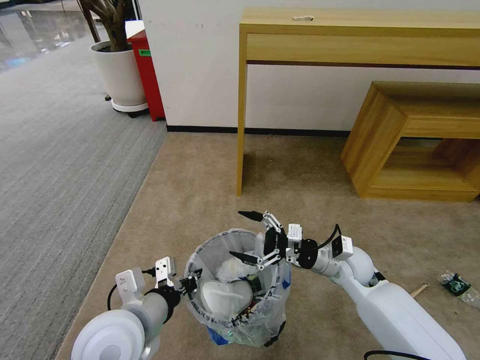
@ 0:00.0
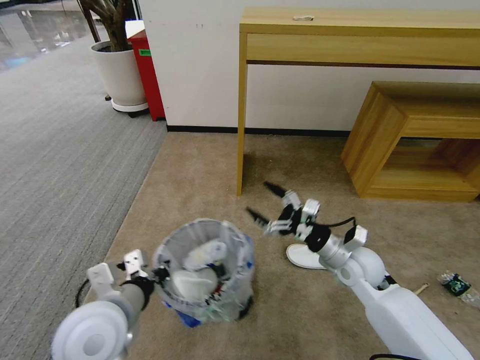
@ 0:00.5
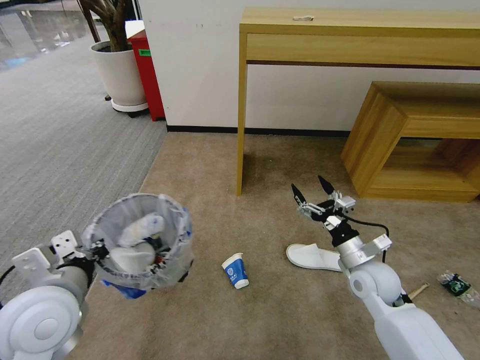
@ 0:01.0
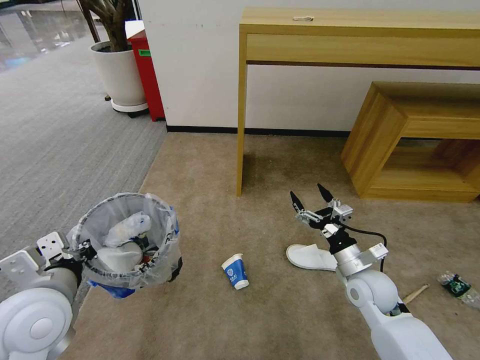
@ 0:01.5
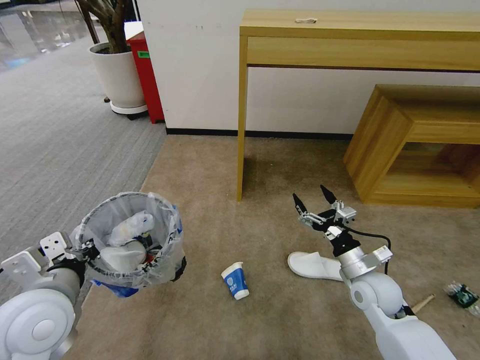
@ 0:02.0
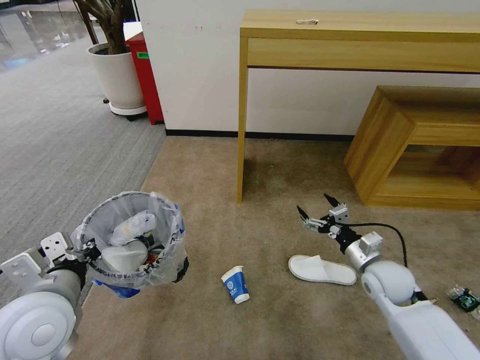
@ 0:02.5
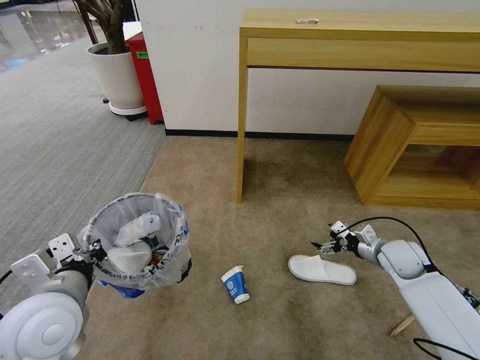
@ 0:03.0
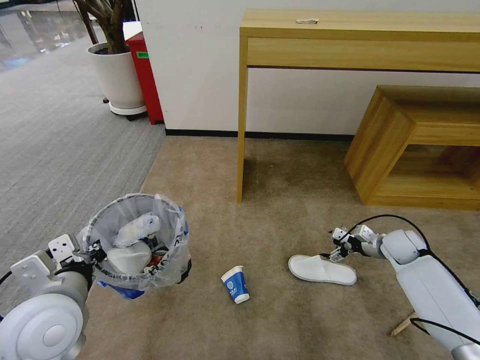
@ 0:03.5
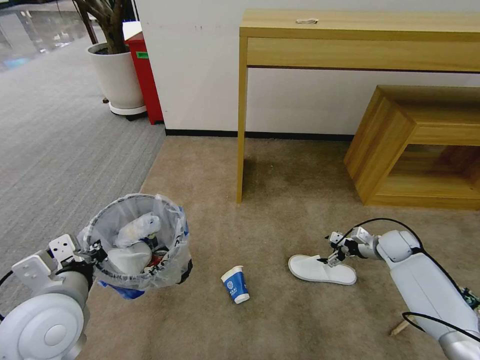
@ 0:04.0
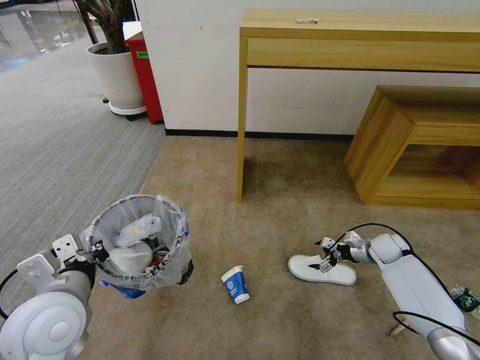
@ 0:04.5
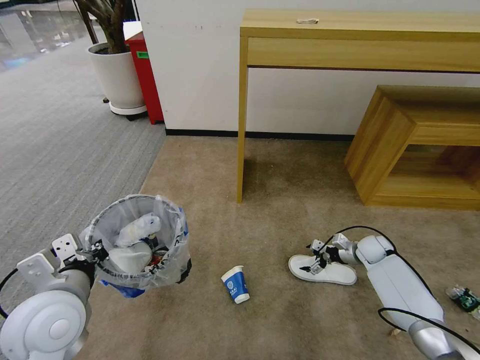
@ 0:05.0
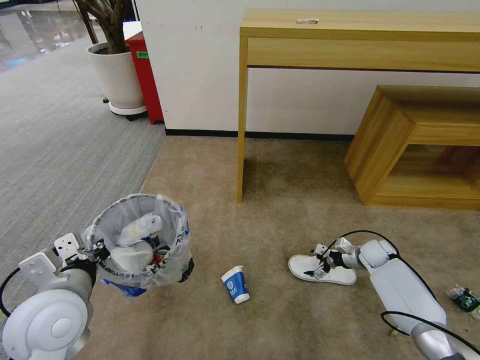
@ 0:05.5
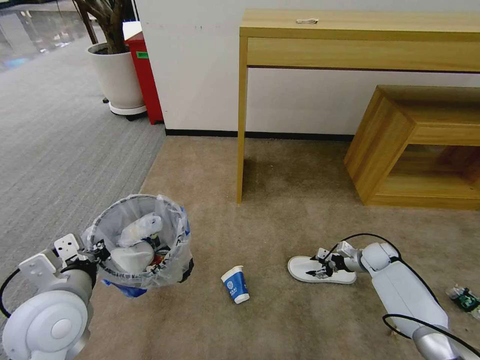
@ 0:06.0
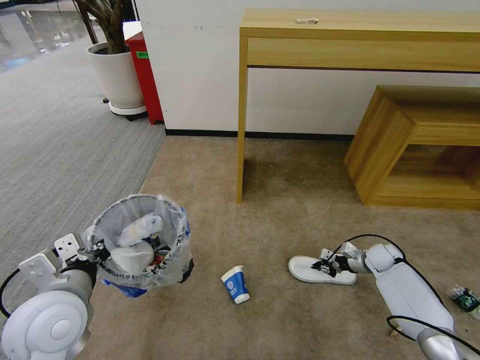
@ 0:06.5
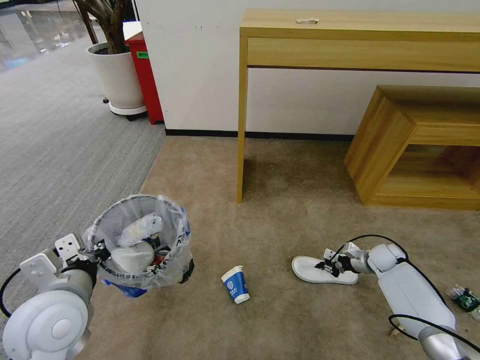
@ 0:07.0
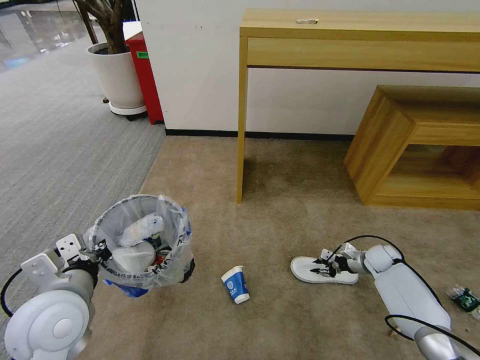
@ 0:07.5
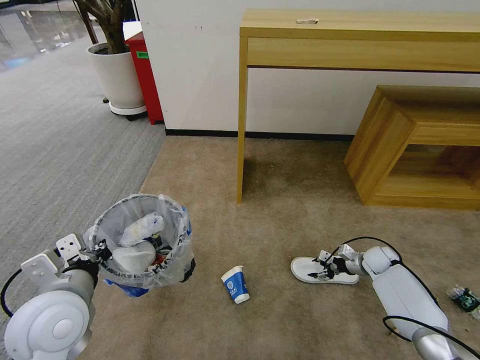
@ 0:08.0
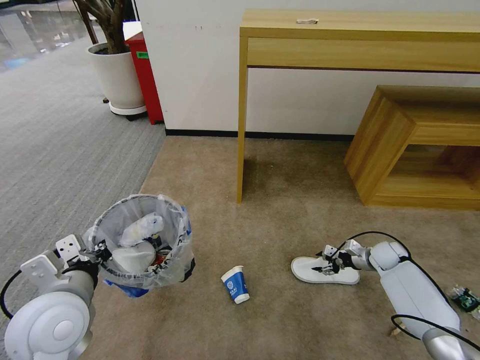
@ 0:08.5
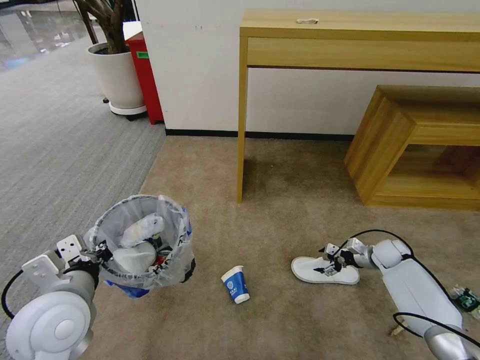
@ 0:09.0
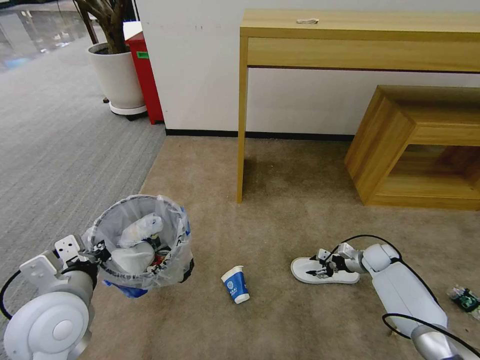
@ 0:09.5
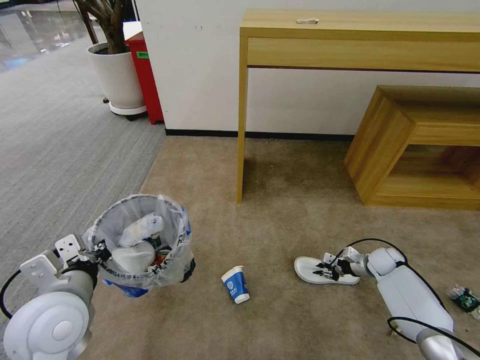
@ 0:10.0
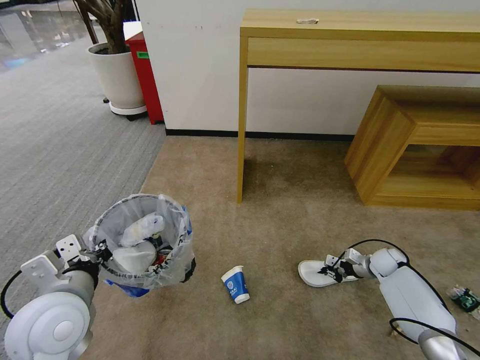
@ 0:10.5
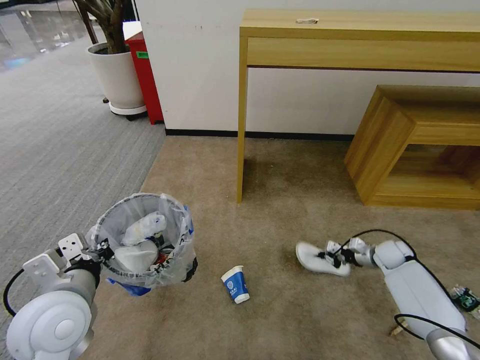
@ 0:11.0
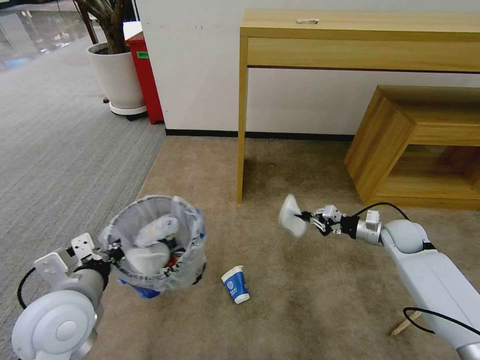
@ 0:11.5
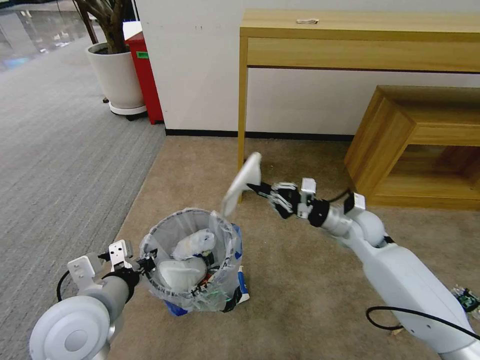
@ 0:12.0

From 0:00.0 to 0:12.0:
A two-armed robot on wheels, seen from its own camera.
Task of the whole recording: Pick up the trash bin and place the garbage on the floor into it.
From 0:00.0 to 0:02.0: The right gripper is displaced backward by about 5 cm, while the left gripper travels to the left by roughly 10 cm.
From 0:02.0 to 0:04.0: The right gripper moves to the right and forward, roughly 20 cm.
From 0:04.0 to 0:06.0: The right gripper shifts some 5 cm downward, and closes up.
From 0:06.0 to 0:08.0: The right gripper closes, then reopens.
From 0:08.0 to 0:10.0: The right gripper closes its fingers.
From 0:10.0 to 0:12.0: The right gripper goes approximately 25 cm upward and to the left.

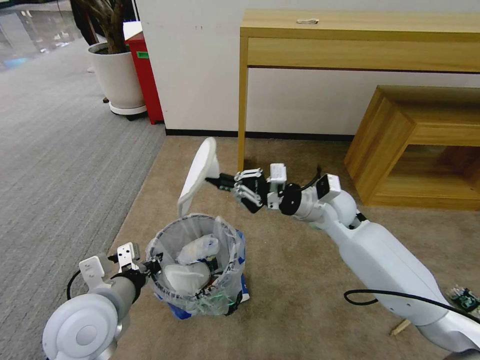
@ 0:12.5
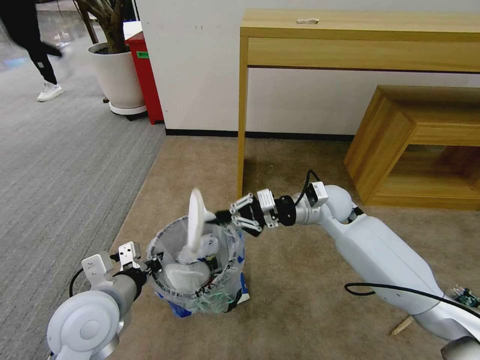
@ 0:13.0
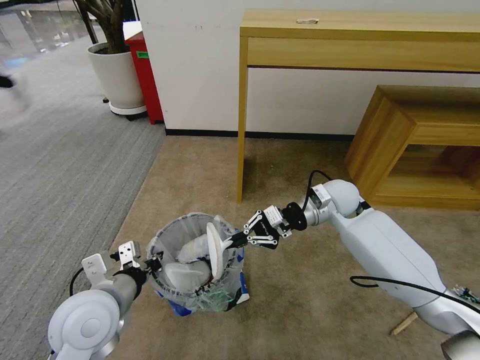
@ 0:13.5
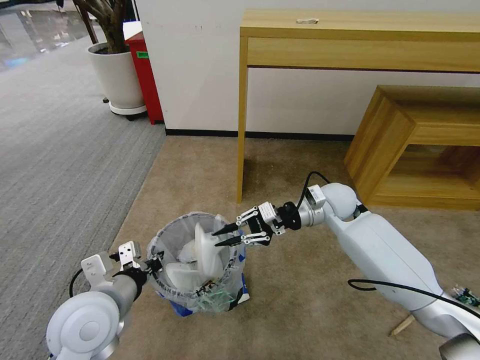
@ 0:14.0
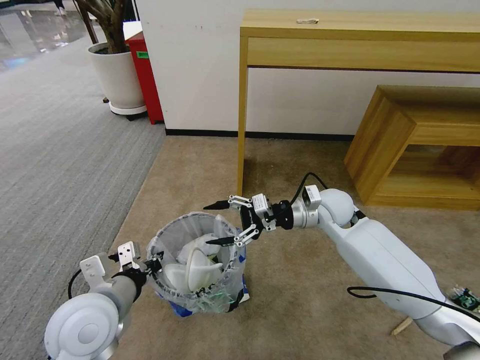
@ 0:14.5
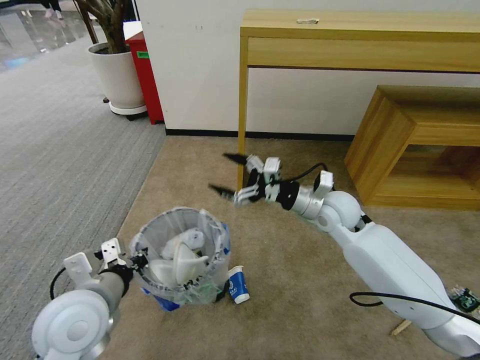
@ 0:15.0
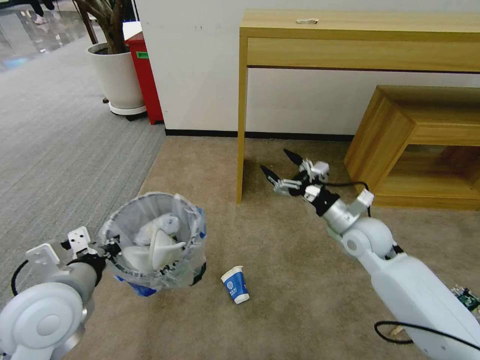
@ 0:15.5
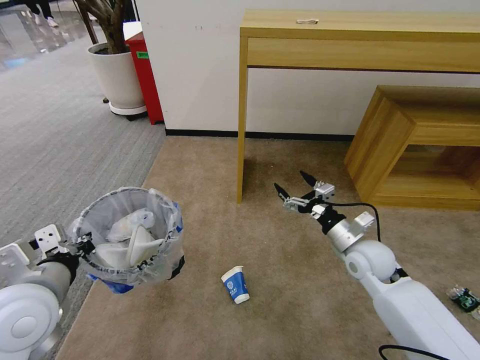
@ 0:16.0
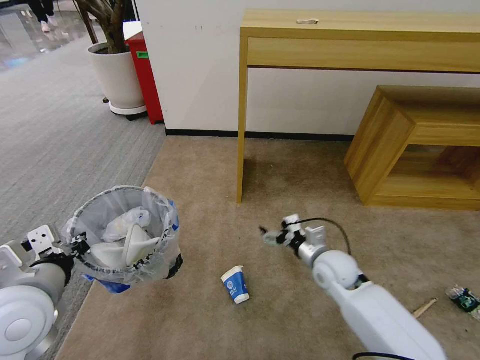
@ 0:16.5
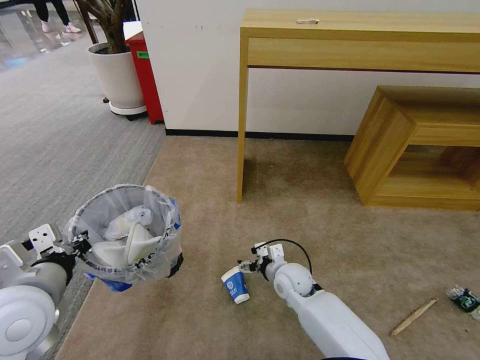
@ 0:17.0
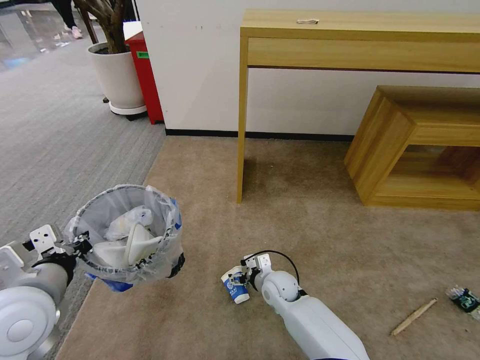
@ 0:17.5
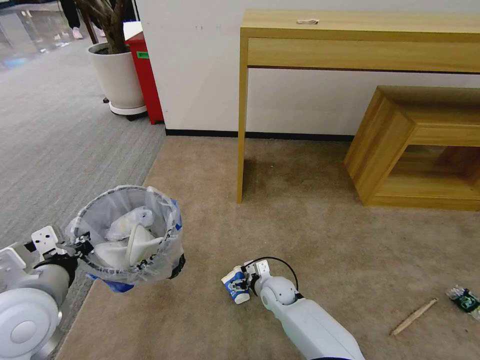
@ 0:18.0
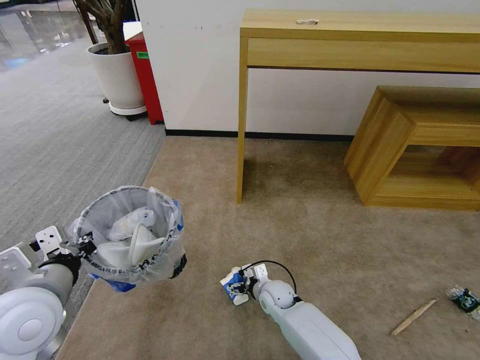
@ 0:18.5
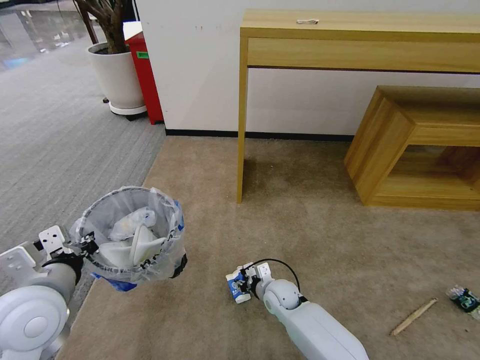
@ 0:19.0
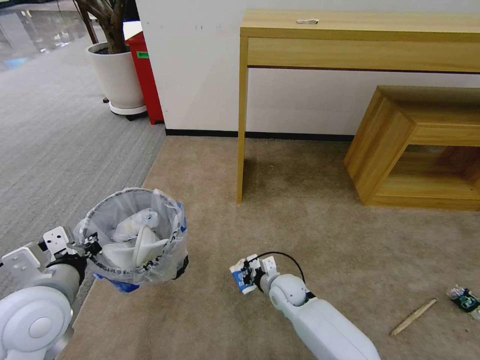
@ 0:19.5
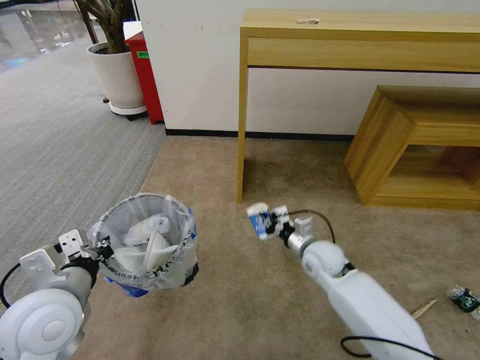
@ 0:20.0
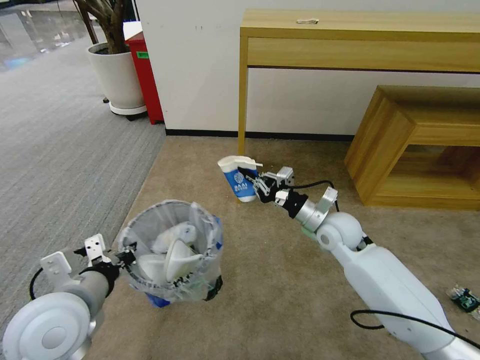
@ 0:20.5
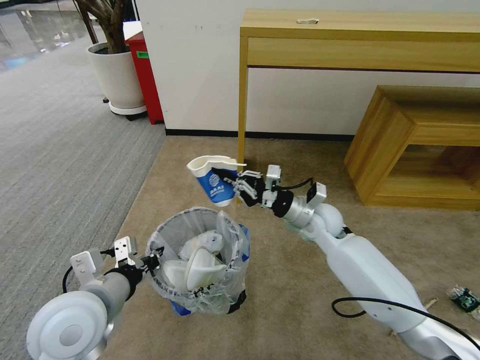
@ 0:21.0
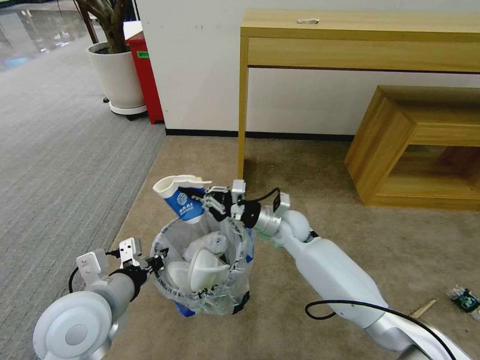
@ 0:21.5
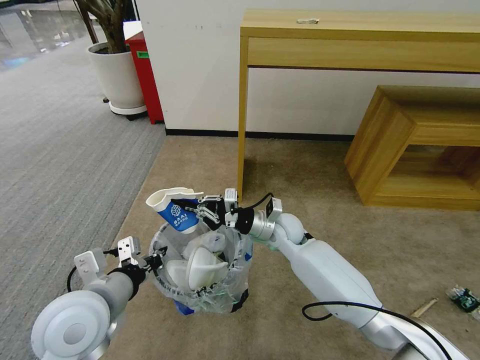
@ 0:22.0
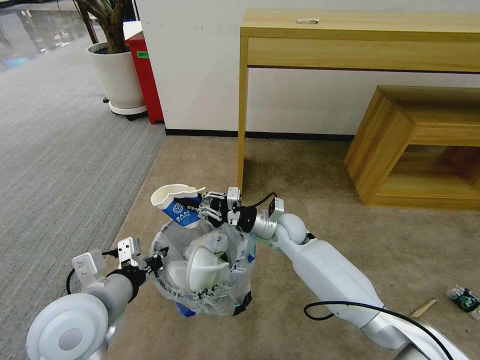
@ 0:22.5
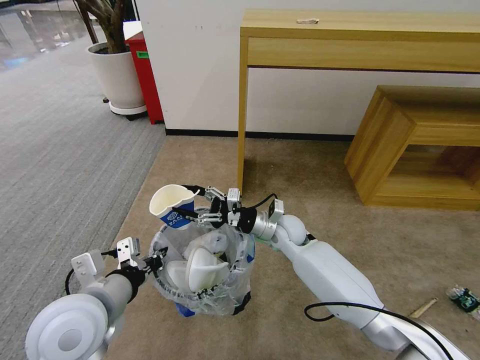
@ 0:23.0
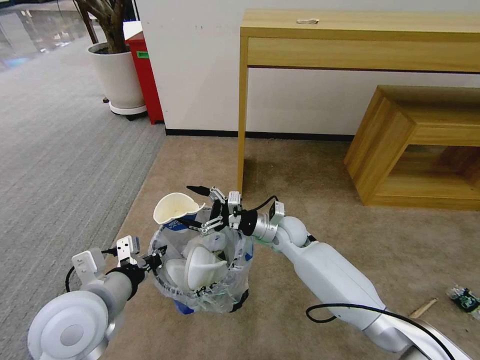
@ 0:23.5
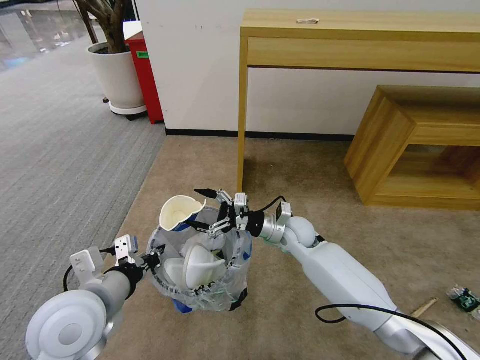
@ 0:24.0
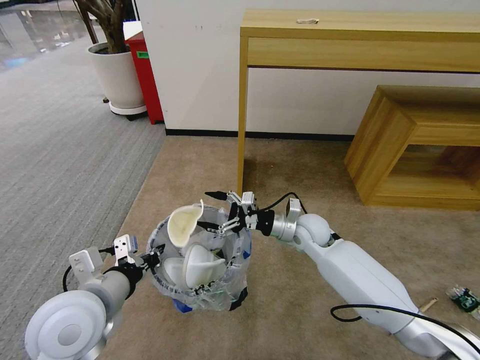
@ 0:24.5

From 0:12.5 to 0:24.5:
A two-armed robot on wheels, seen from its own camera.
Task of the whole recording: Pick up the trash bin and place the garbage on the floor into it.
From 0:12.5 to 0:14.5: The right gripper opens its fingers.
From 0:14.5 to 0:16.5: The right gripper moves downward and backward, about 15 cm. Meanwhile the left gripper moves to the left and upward, some 10 cm.
From 0:16.5 to 0:18.5: The right gripper goes some 20 cm downward and to the left.
From 0:18.5 to 0:20.5: The right gripper shifts approximately 25 cm upward and to the right, and closes its fingers.
From 0:20.5 to 0:22.5: The right gripper shifts approximately 10 cm to the left.
From 0:22.5 to 0:24.5: The right gripper heads to the right, covering some 5 cm, and opens.

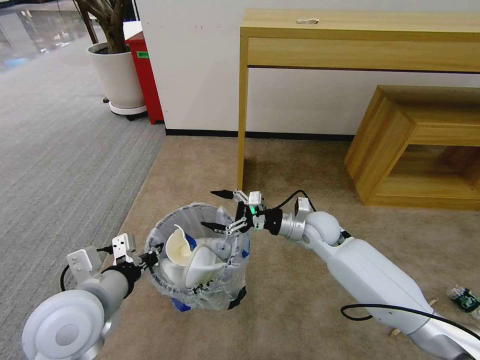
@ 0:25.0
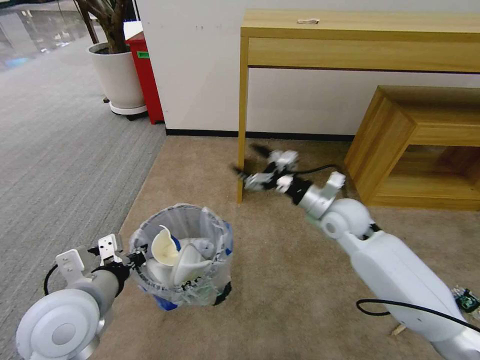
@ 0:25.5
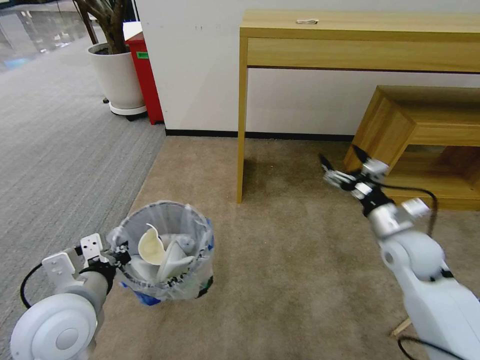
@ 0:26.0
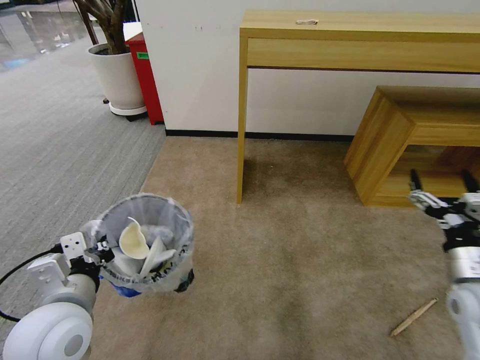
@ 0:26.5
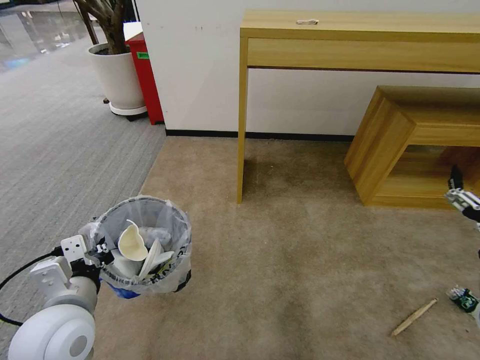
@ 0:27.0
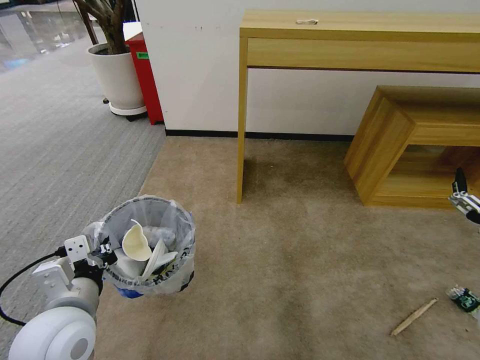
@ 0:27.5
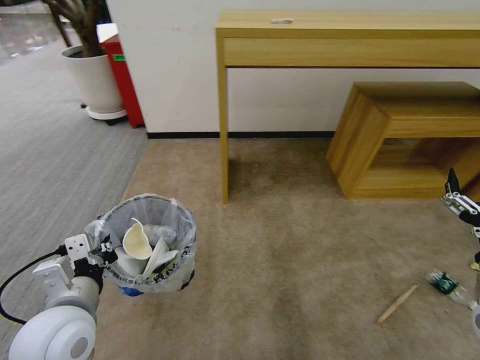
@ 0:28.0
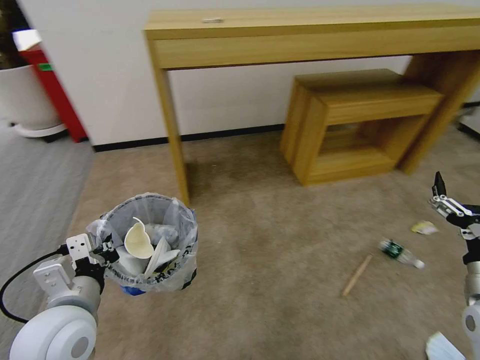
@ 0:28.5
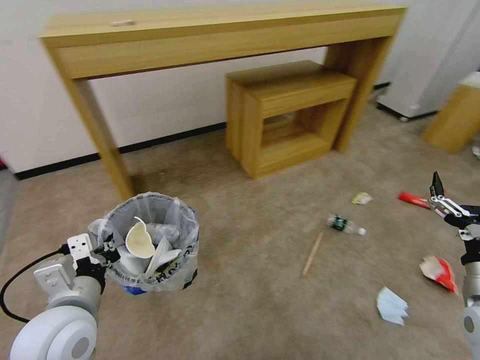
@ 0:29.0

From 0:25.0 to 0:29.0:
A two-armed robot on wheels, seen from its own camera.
Task of the whole recording: Pick up the trash bin and place the garbage on the floor into it.
From 0:25.0 to 0:27.0: The right gripper goes some 35 cm to the right and backward.
